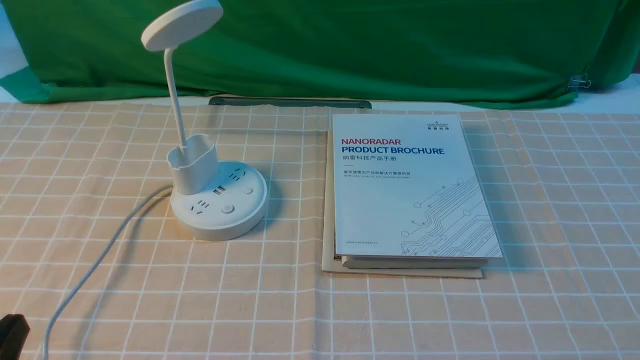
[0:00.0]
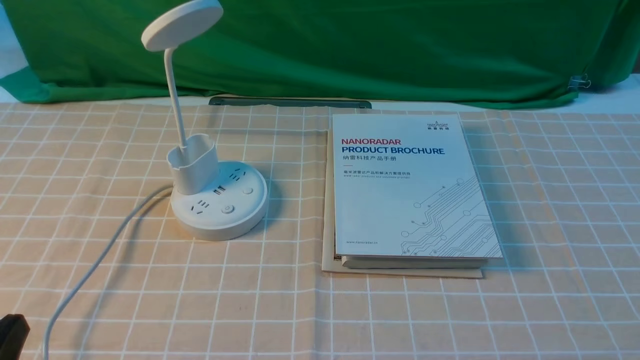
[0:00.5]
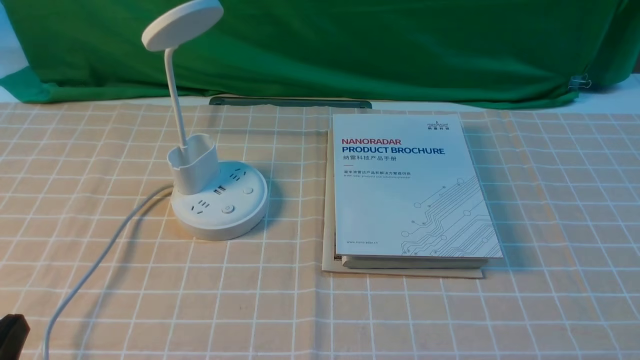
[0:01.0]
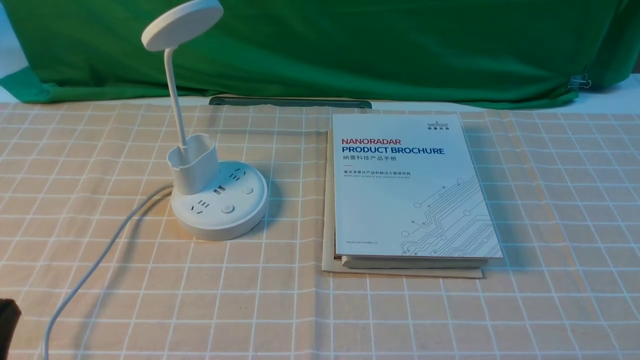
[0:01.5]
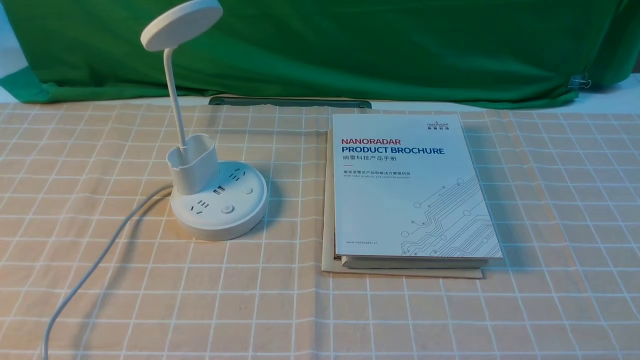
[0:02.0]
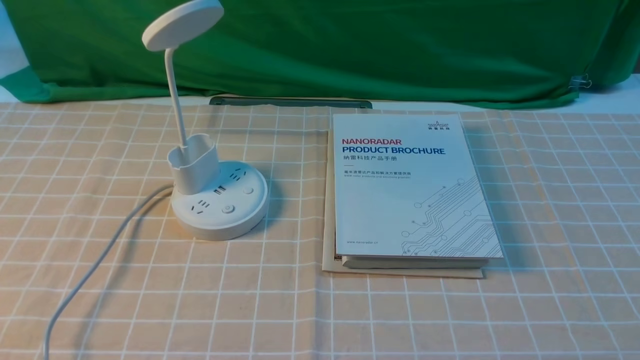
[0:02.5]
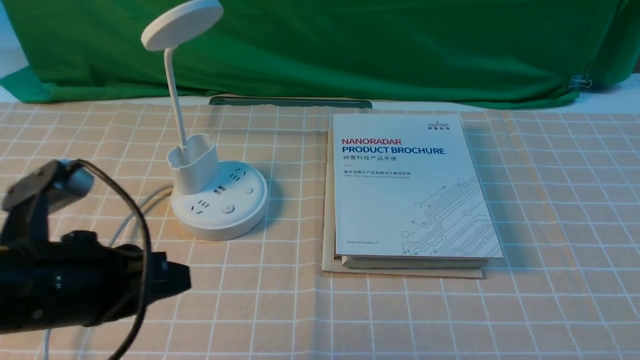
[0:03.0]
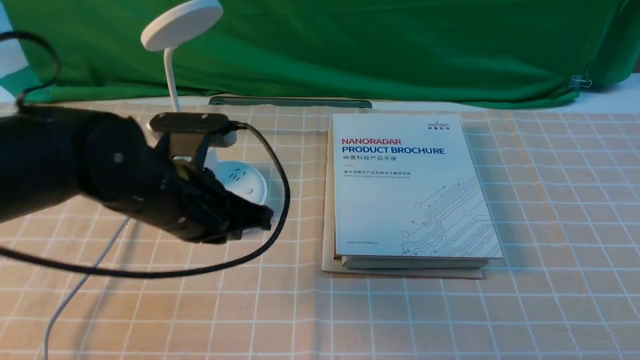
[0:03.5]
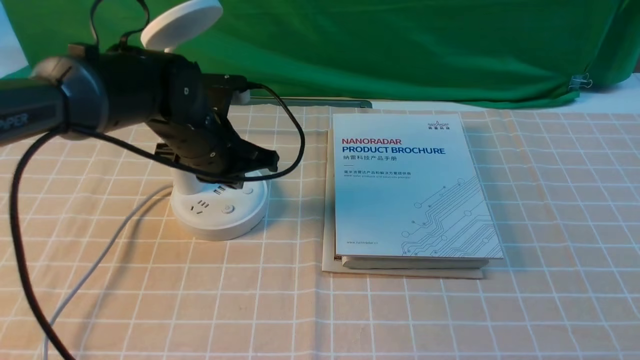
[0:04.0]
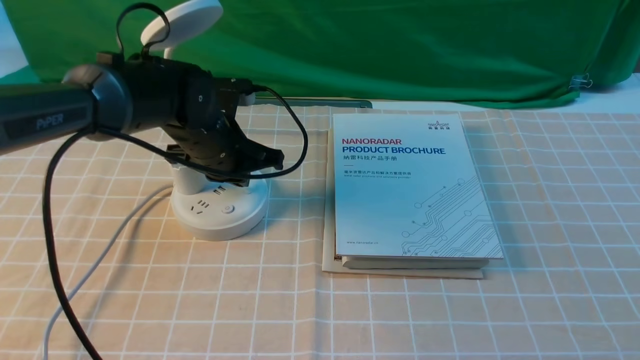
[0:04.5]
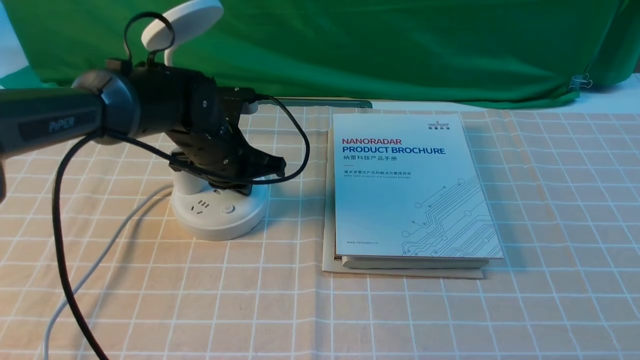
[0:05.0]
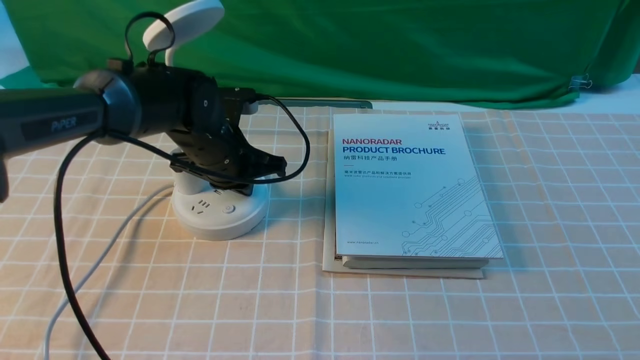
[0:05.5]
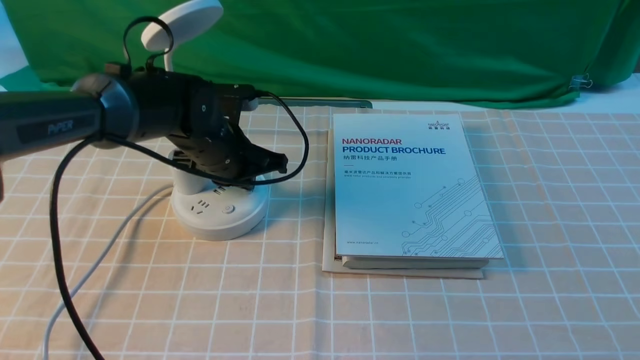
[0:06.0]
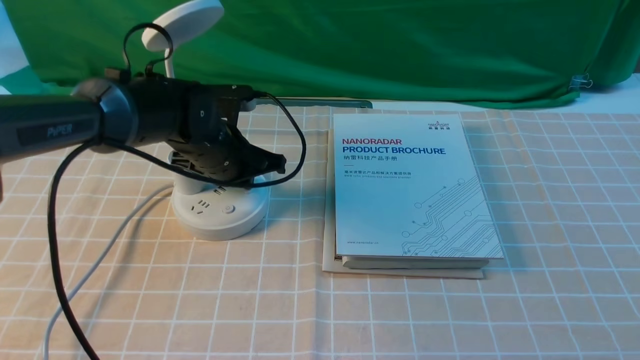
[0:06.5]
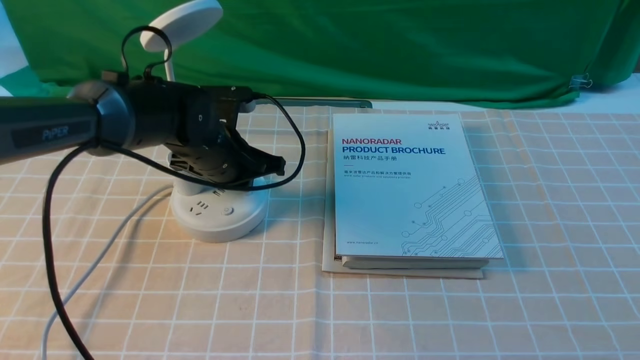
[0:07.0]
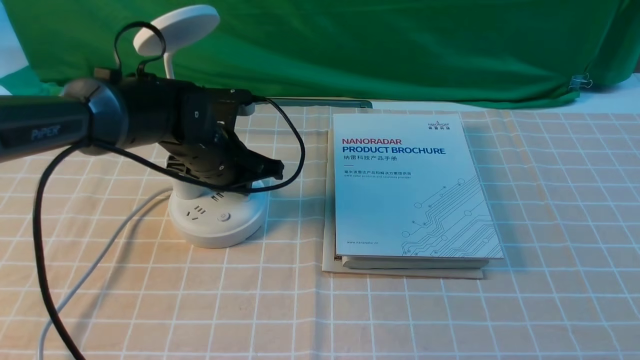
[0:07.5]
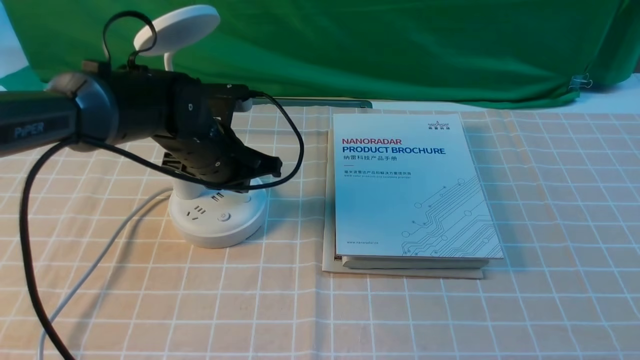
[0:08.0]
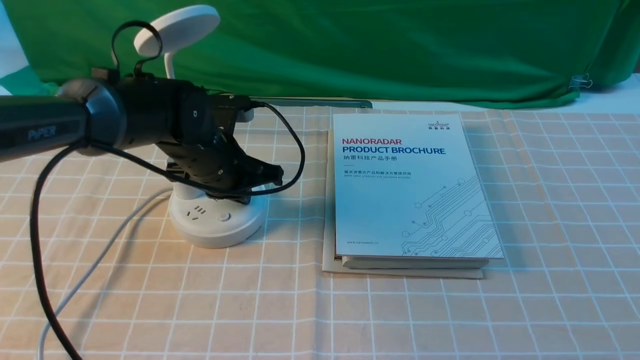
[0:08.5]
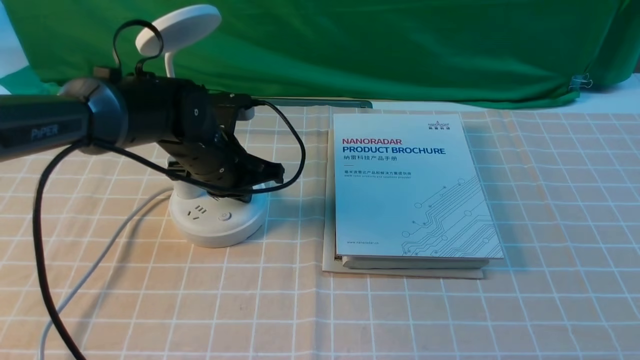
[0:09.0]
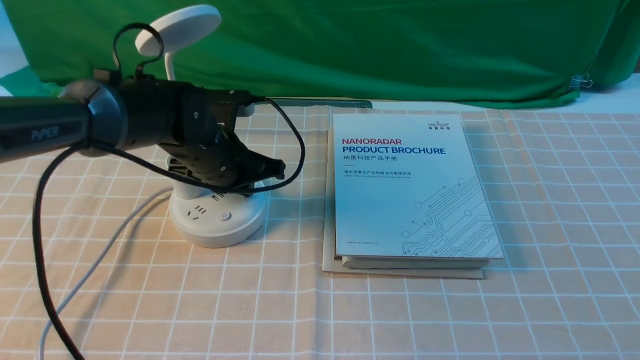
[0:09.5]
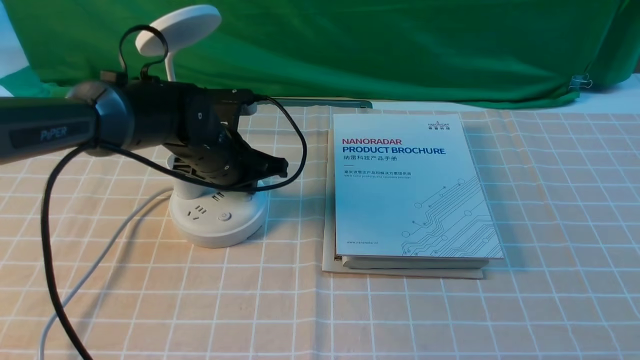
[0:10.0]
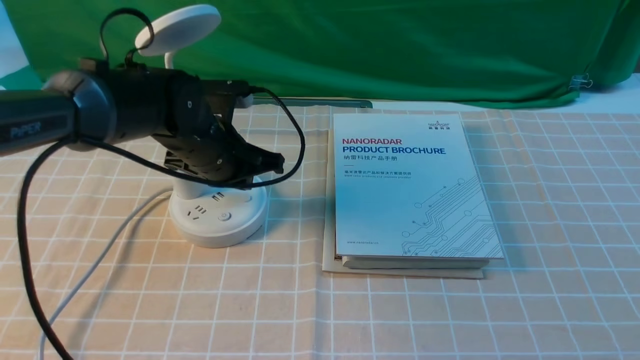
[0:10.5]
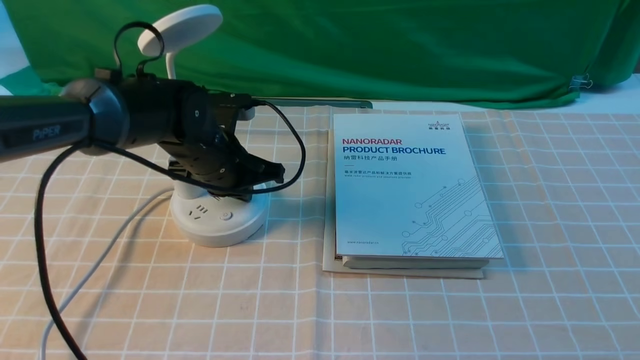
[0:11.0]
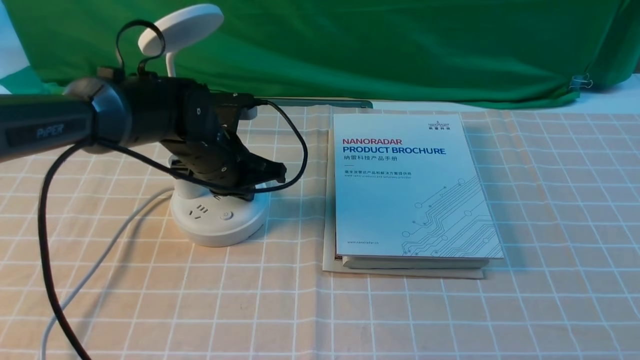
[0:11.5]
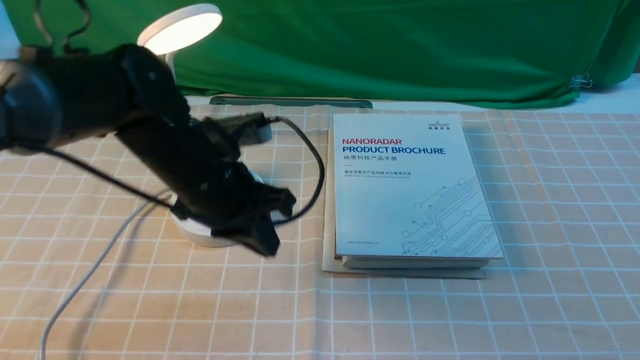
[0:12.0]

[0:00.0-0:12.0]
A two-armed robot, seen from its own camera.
0:02.0 to 0:04.0: The left gripper is displaced forward and to the right by some 35 cm.
0:04.0 to 0:06.0: The left gripper moves about 5 cm.
0:06.0 to 0:10.0: The grippers stay close to where they were, moving slightly.
0:10.0 to 0:12.0: The left gripper is displaced backward by about 5 cm.

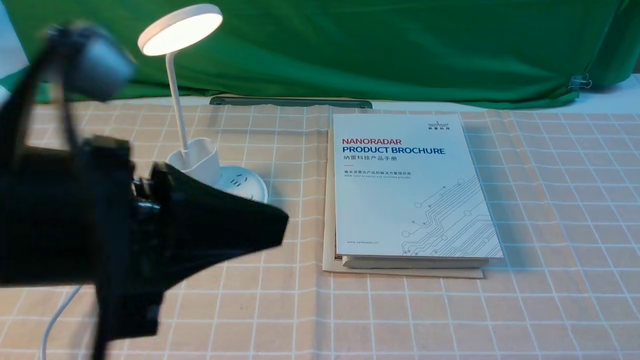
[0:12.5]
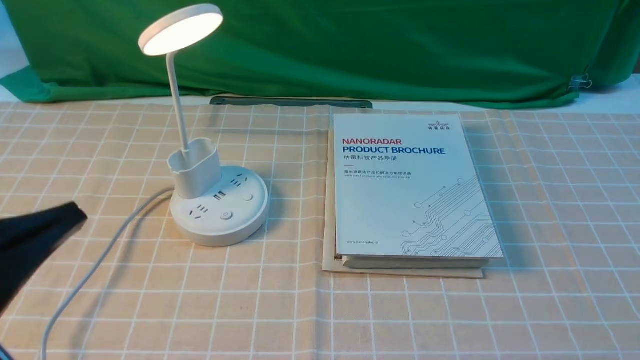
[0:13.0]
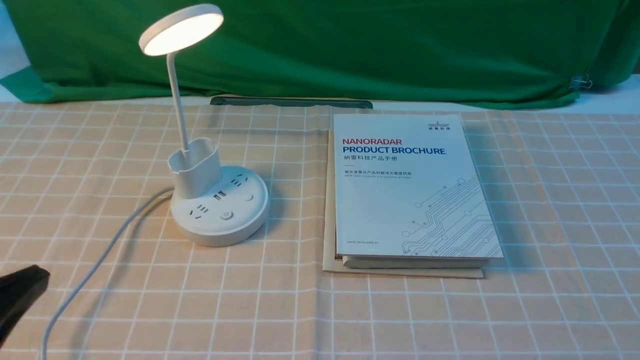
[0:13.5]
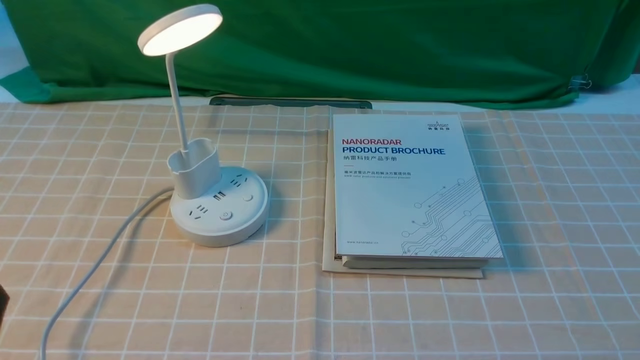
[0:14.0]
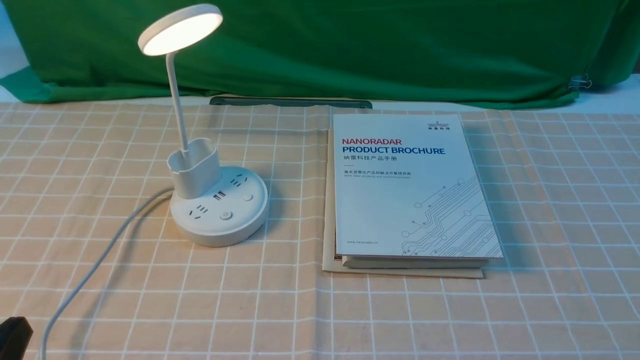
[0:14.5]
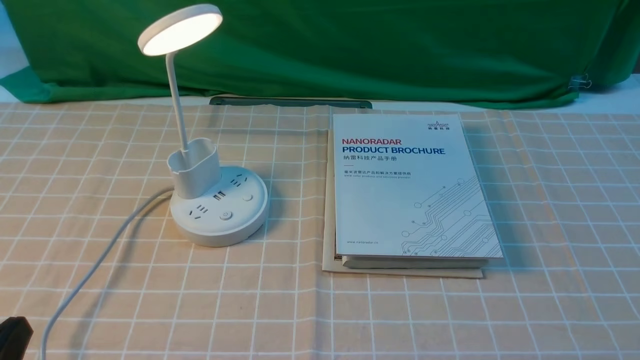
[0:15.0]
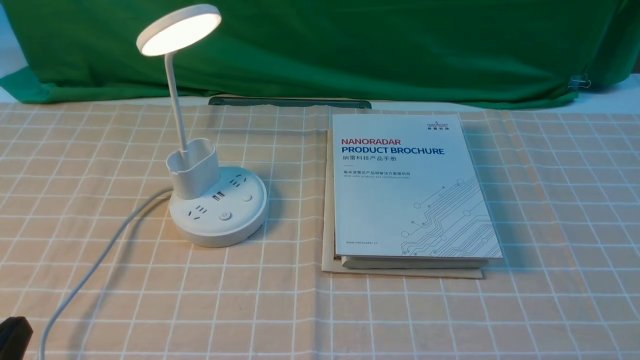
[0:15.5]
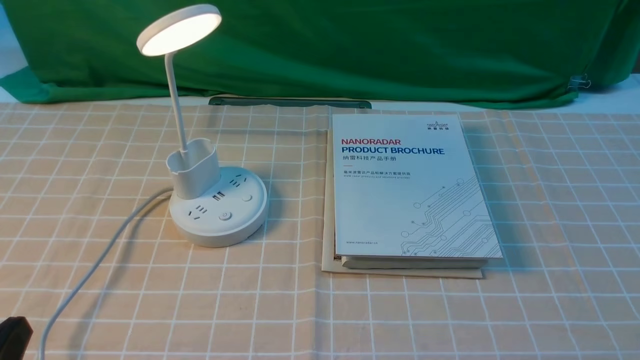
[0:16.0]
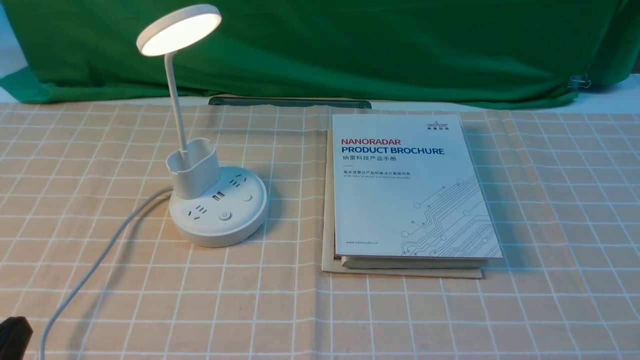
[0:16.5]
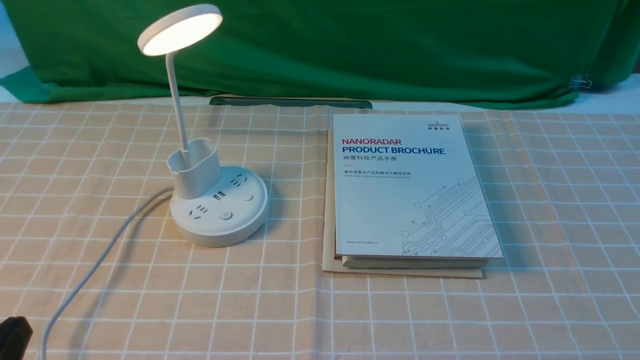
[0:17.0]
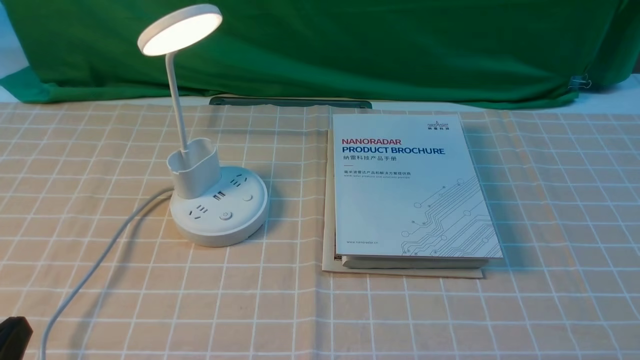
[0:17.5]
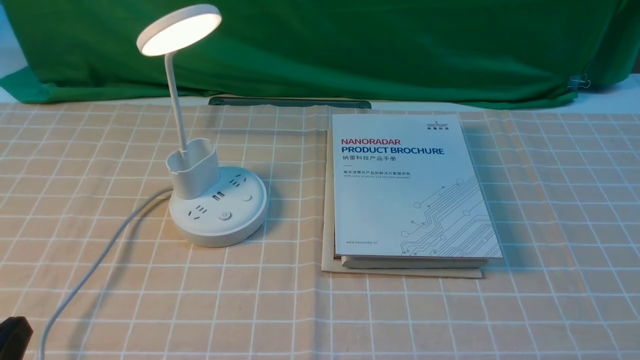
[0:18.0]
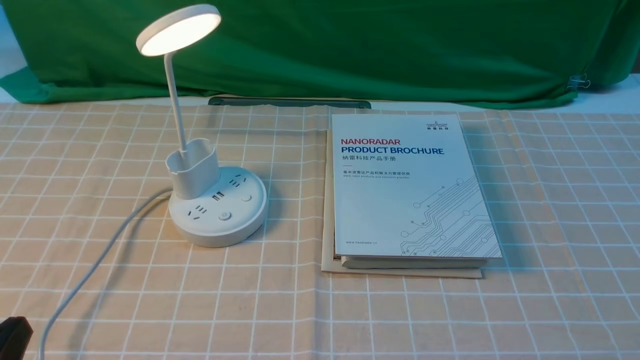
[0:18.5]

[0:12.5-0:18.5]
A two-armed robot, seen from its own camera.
0:12.5 to 0:14.5: The left gripper travels downward, to the left and backward by some 25 cm, and opens.
0:16.5 to 0:18.5: Both grippers stay about where they are.

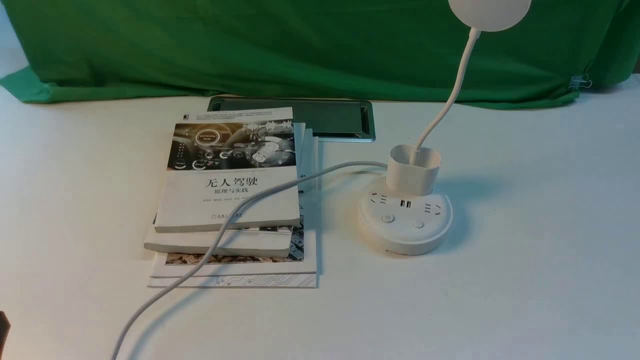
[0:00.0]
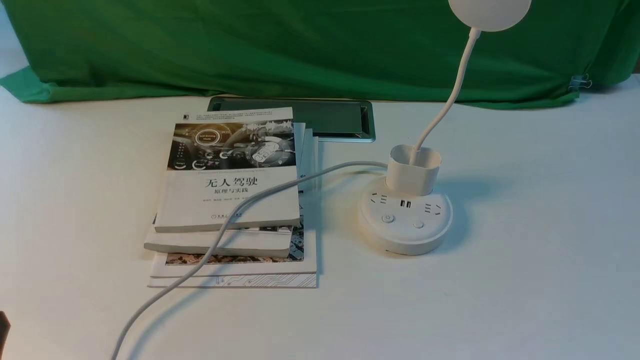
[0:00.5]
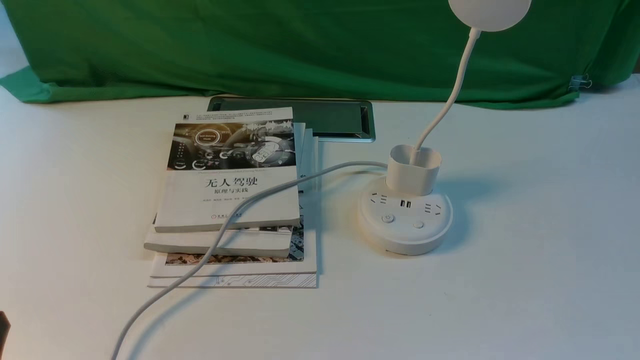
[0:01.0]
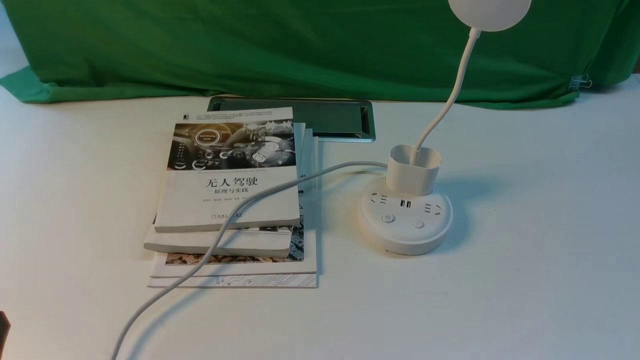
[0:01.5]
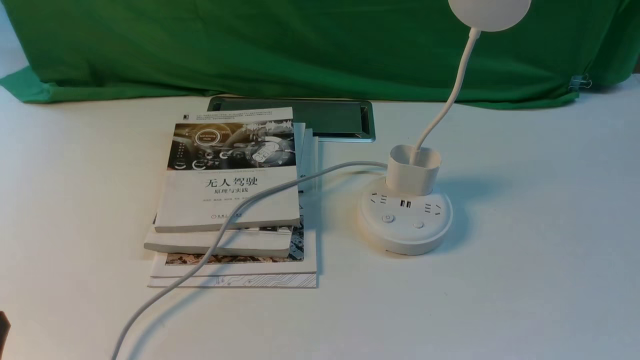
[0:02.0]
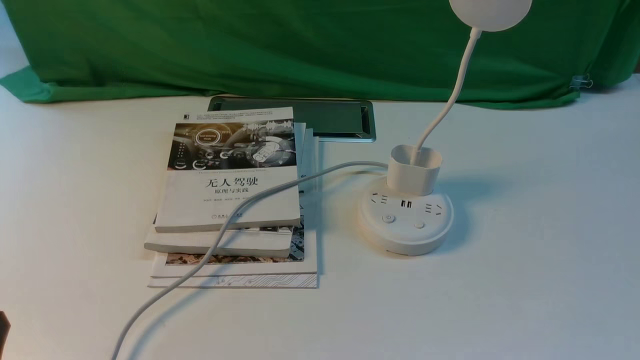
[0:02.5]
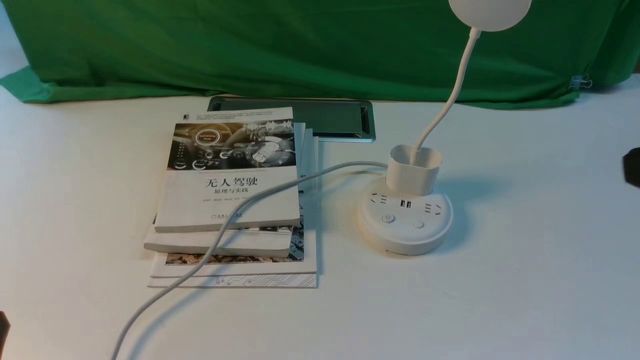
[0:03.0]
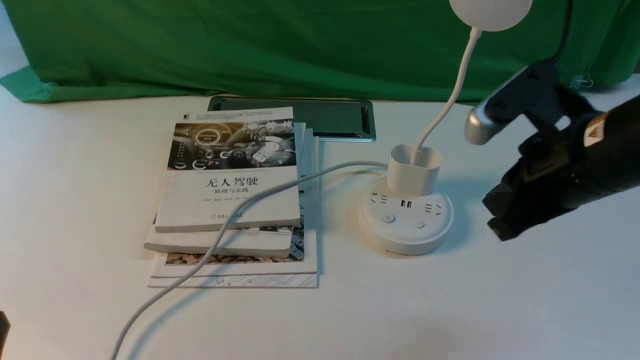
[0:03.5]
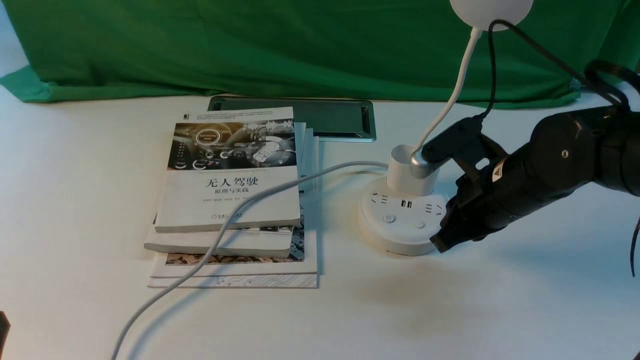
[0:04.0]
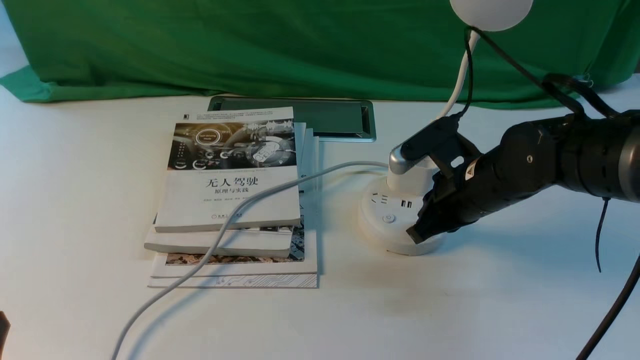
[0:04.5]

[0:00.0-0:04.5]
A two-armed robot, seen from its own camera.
0:02.0 to 0:04.5: The right gripper travels forward and to the left by roughly 30 cm, and closes up.
